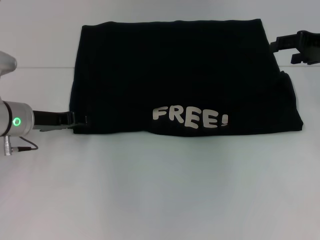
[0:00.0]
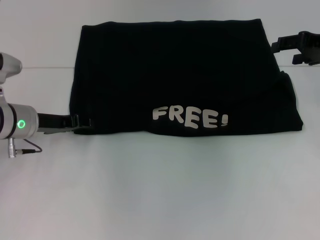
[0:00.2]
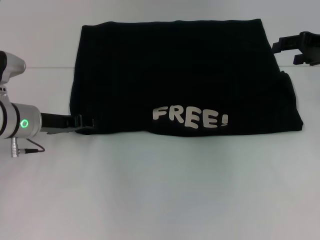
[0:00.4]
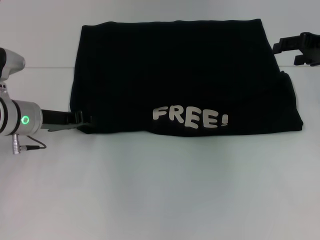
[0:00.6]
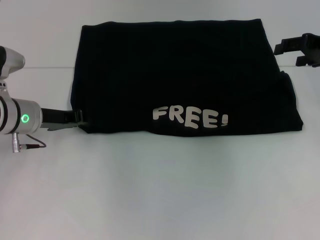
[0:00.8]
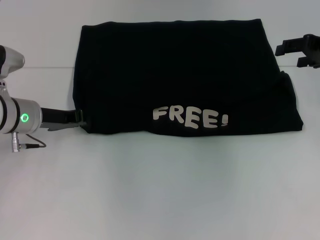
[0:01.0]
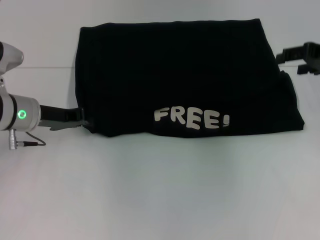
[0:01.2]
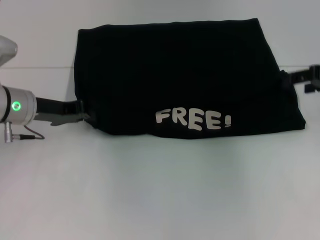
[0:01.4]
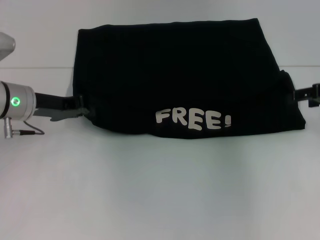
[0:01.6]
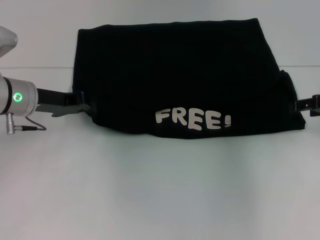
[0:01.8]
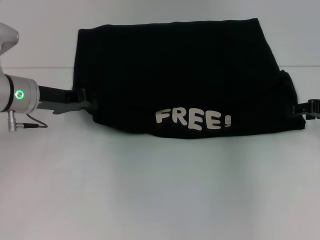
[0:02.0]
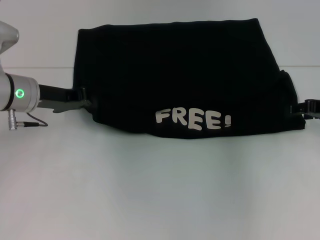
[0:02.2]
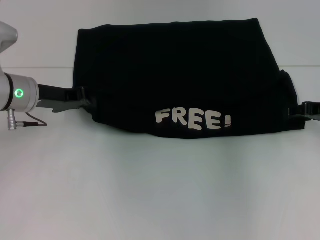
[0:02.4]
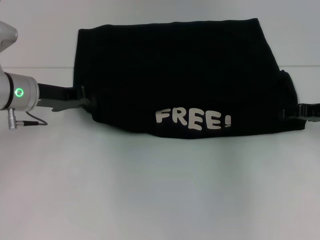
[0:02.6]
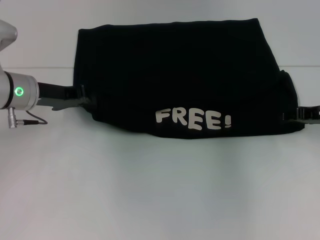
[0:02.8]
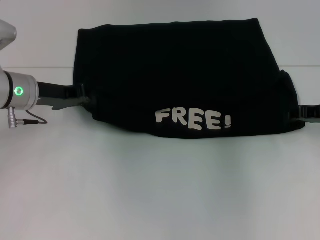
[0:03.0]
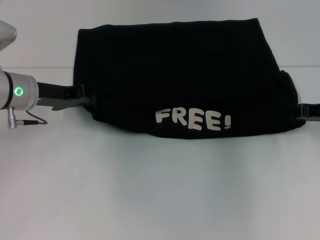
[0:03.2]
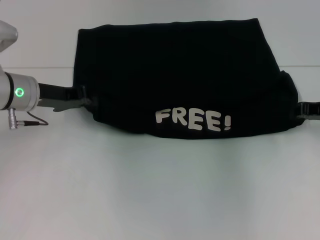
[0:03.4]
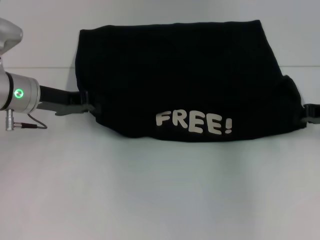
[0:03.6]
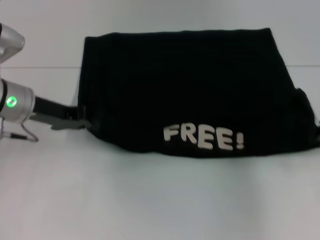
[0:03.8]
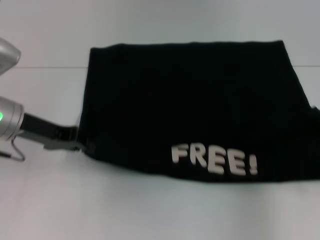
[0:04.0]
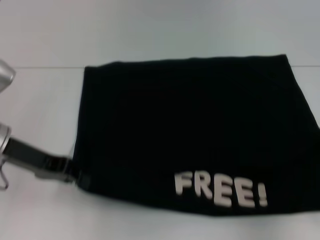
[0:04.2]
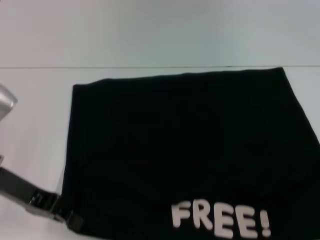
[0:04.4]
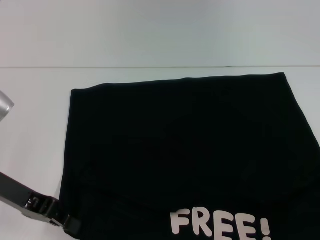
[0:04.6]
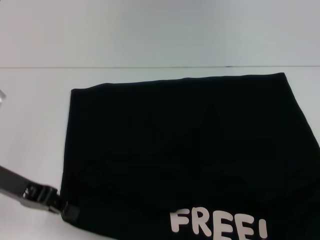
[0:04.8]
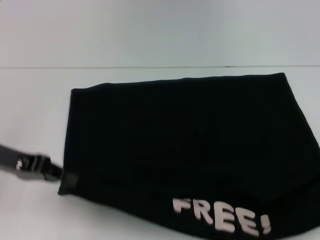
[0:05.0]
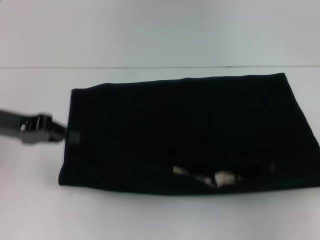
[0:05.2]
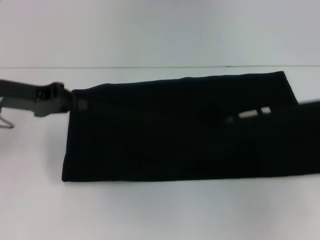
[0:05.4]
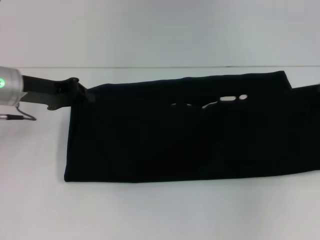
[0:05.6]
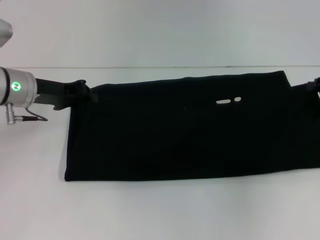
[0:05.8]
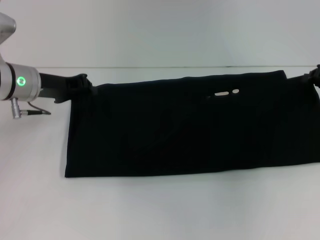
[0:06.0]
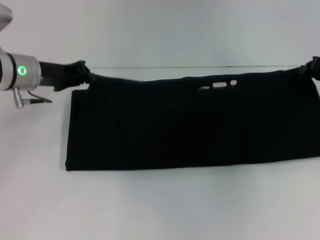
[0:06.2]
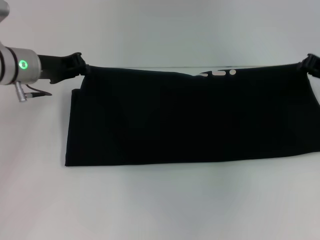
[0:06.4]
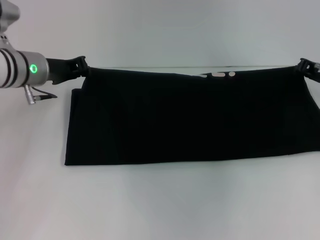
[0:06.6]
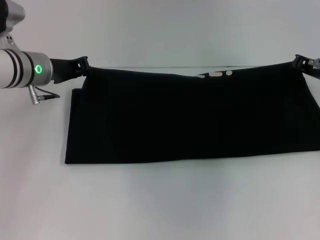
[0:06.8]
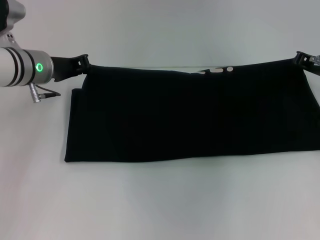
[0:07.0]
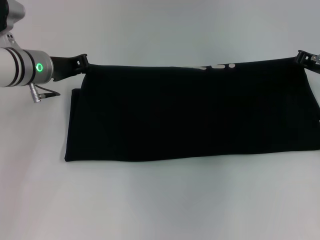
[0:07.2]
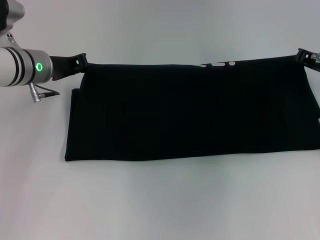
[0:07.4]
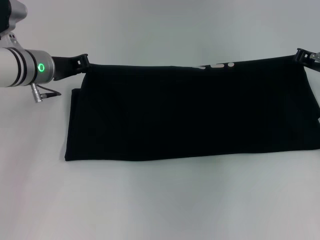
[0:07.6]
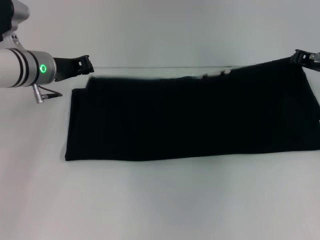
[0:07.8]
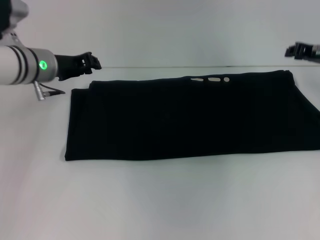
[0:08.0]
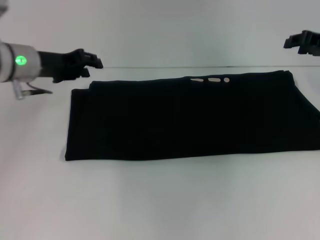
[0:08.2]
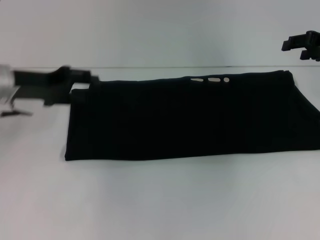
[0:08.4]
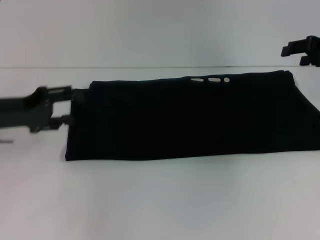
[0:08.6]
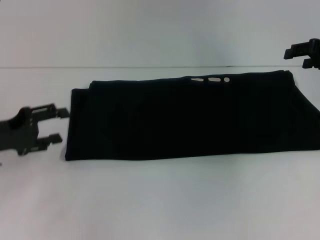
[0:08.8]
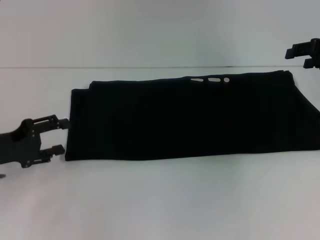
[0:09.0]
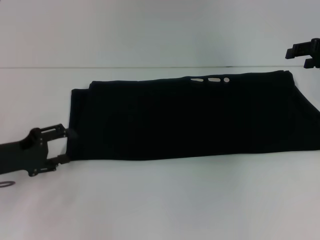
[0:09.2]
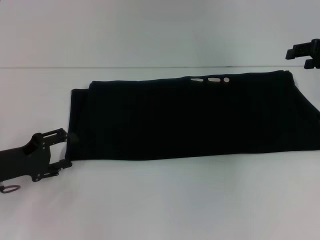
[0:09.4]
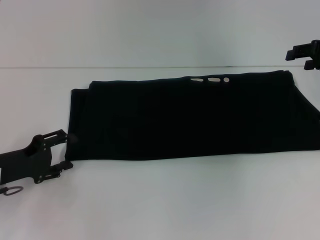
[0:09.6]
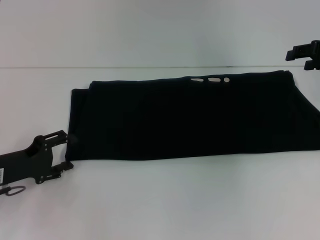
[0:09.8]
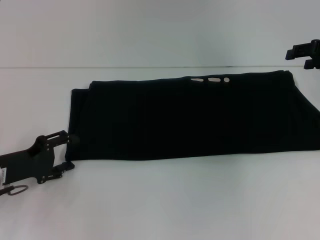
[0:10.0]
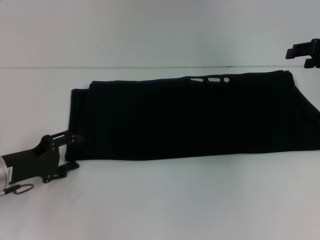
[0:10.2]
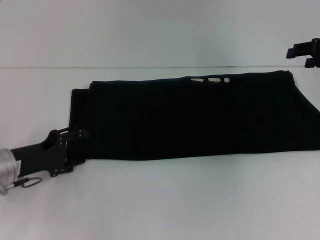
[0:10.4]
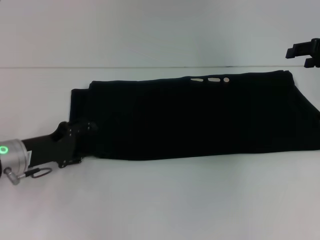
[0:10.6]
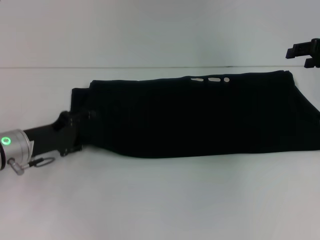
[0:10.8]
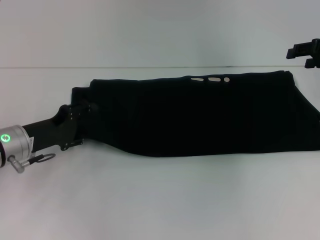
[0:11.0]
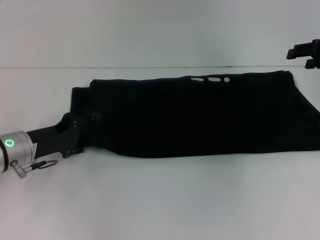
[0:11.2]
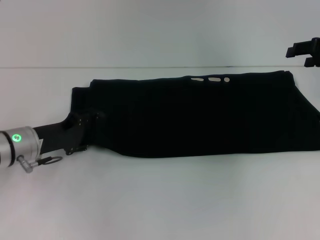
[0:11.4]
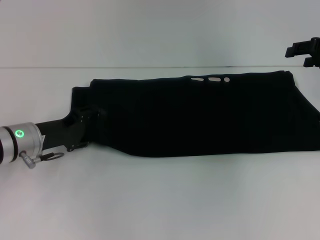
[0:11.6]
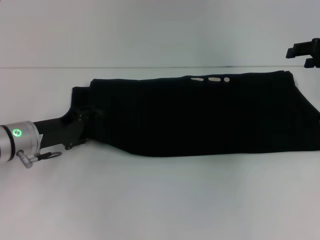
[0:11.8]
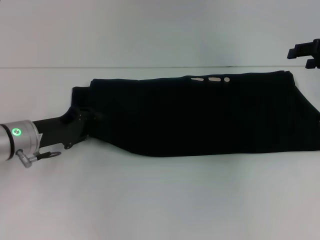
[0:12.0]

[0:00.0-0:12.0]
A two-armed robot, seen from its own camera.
Step, 0:00.0 to 0:04.4: Pull the clothes with your left hand.
Step, 0:00.0 to 0:04.4: Pull the clothes with your right hand.
Step, 0:04.6 to 0:08.2: Fold the clothes with your right hand.
0:00.0 to 0:01.6: The right gripper changes place by approximately 5 cm. Meanwhile the left gripper closes its fingers.
0:01.6 to 0:03.0: The right gripper is displaced downward by some 5 cm.
0:03.0 to 0:04.4: The left gripper heads backward, covering approximately 10 cm. The right gripper shifts approximately 15 cm backward and to the right, and closes.
0:04.4 to 0:06.0: The grippers both shift forward by approximately 15 cm.
0:06.0 to 0:07.6: The right gripper changes place by some 5 cm.
0:07.6 to 0:09.0: The left gripper moves backward and to the left, about 20 cm, and opens, while the right gripper shifts some 5 cm upward, and opens up.
0:09.0 to 0:10.4: The left gripper ends up roughly 5 cm from where it was.
0:10.4 to 0:12.0: The left gripper changes place by about 5 cm.

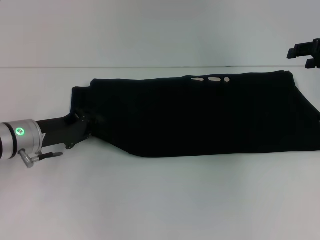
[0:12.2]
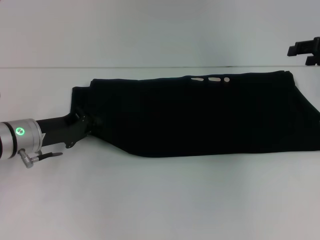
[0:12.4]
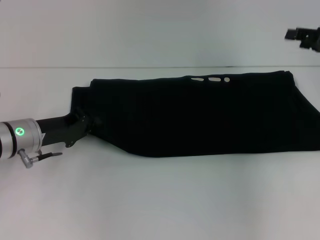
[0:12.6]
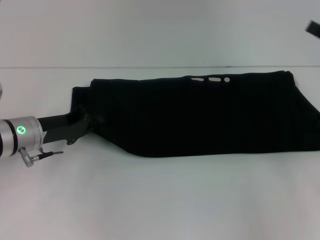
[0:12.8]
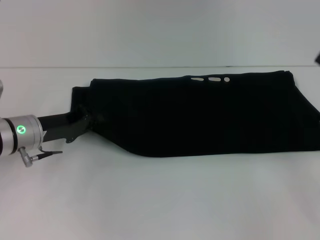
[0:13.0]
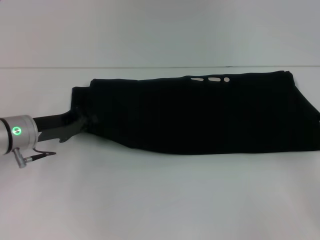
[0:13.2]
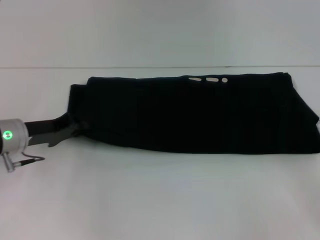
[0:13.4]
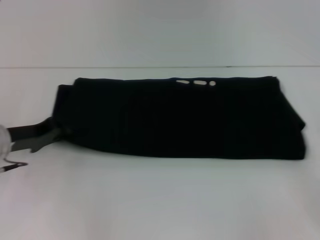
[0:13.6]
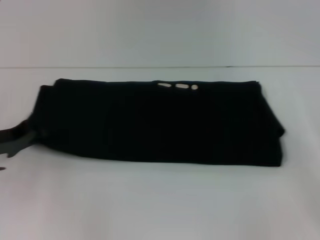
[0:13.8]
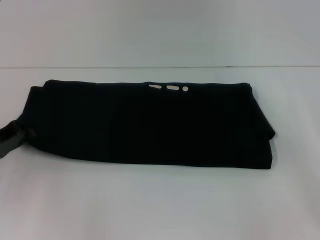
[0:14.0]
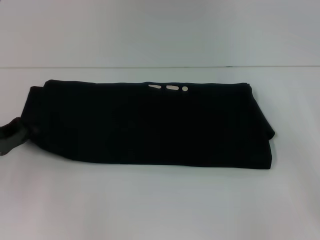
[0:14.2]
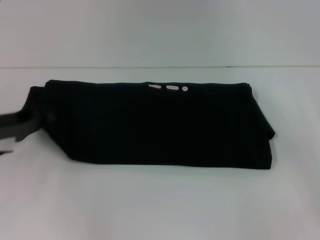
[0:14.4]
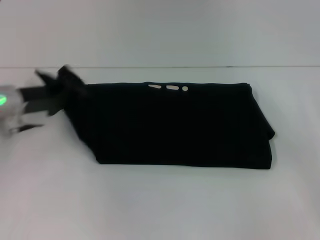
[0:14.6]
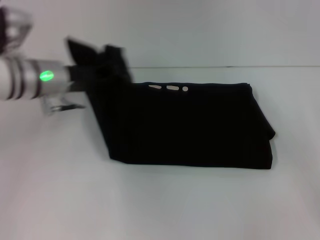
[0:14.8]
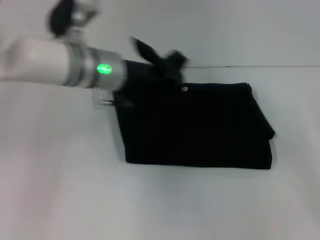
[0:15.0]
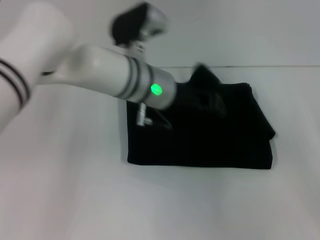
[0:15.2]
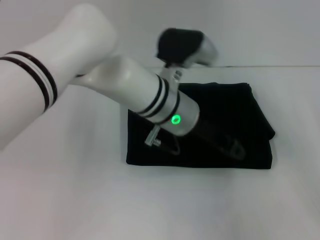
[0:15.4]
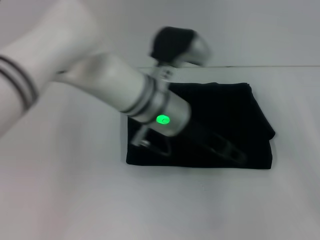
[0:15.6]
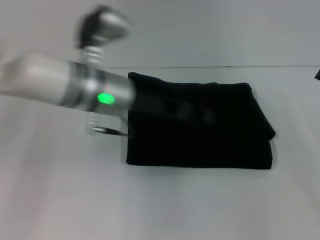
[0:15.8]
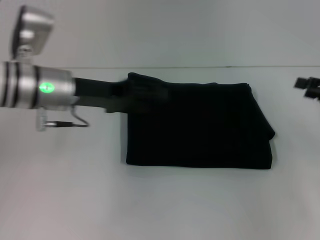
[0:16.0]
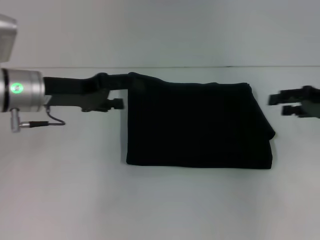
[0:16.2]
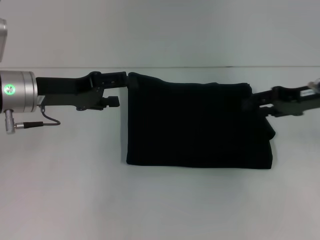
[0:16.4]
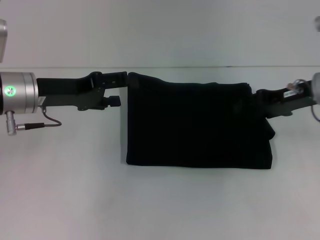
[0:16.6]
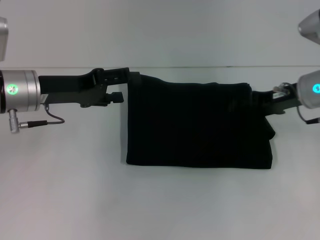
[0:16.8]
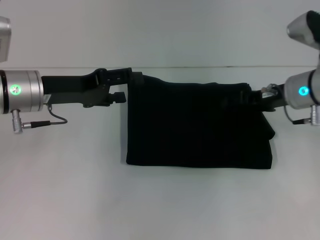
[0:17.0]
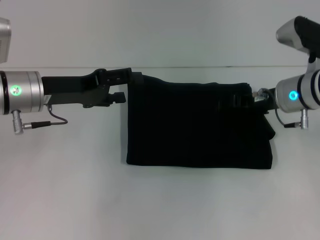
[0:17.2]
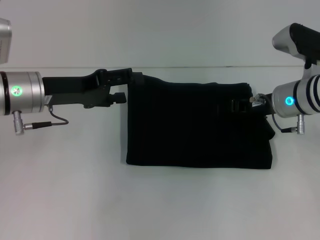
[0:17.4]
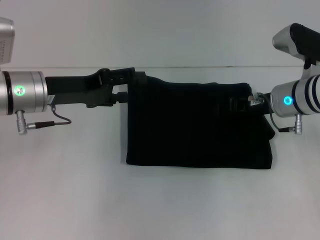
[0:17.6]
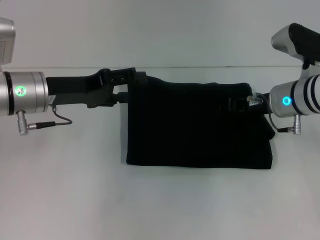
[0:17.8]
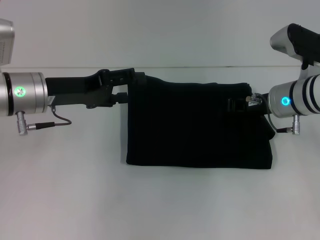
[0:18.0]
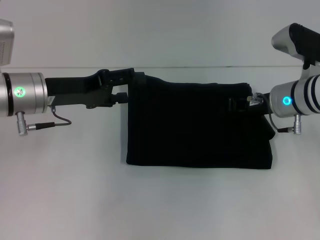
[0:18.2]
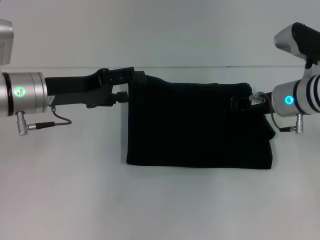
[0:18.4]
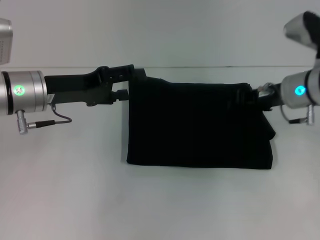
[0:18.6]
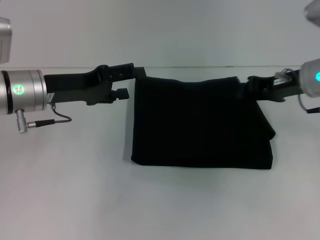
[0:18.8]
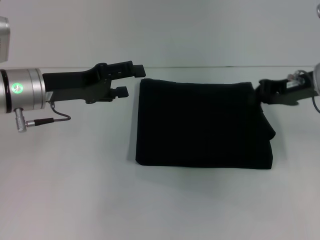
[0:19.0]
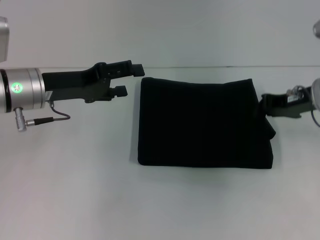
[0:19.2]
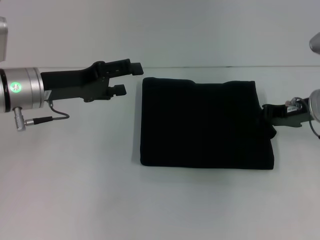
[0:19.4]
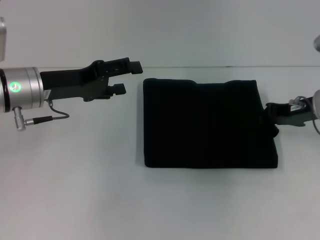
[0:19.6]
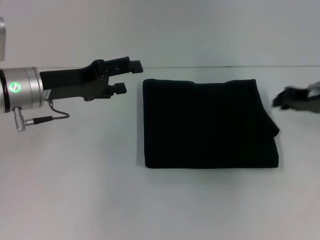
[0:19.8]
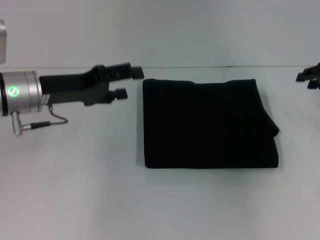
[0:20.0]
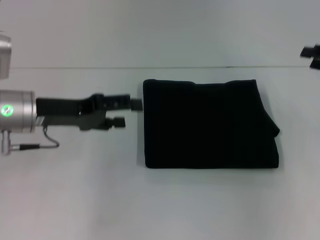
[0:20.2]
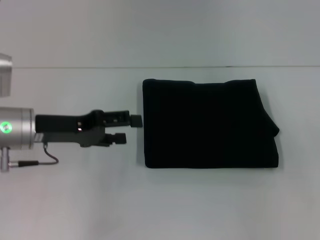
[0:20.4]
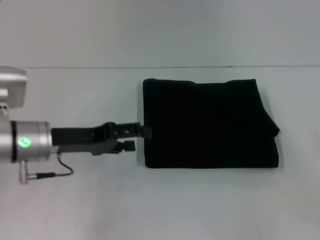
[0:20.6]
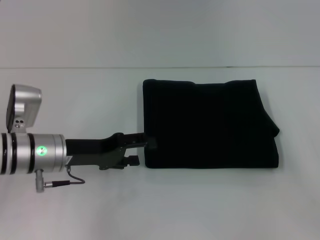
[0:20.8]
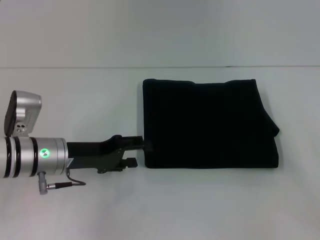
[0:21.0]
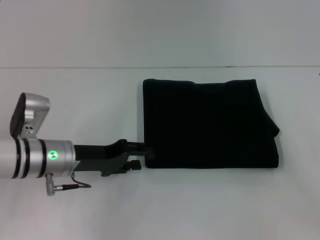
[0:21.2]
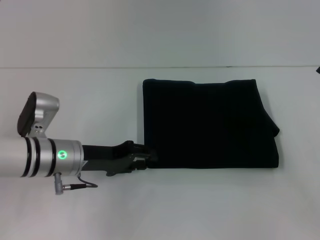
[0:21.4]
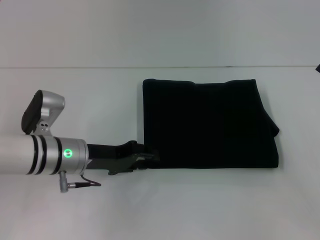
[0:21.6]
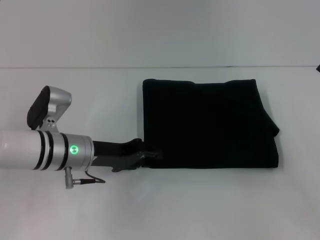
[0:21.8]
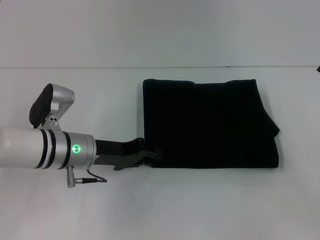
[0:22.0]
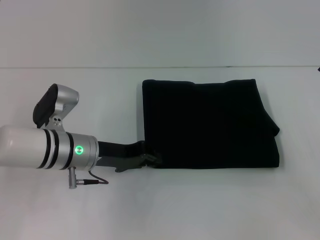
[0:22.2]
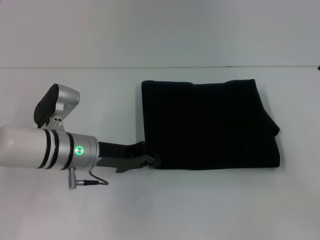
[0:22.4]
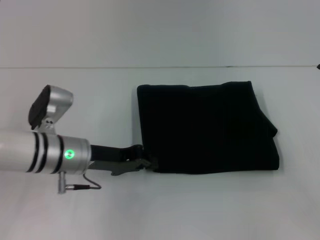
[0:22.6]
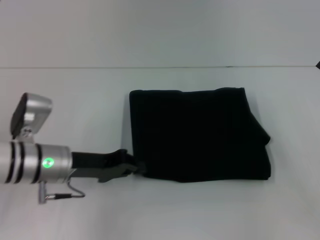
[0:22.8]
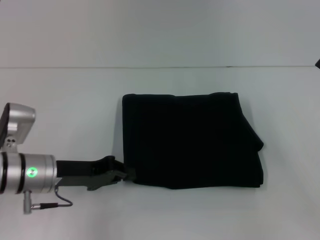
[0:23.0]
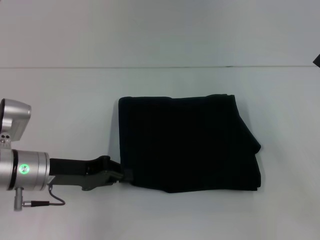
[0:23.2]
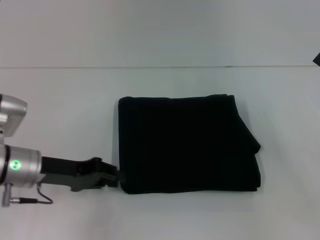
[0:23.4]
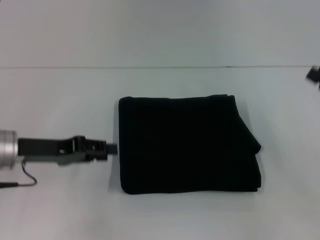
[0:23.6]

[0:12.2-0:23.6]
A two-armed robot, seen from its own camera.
Step, 0:12.2 to 0:15.8: Fold the clothes with your left hand.
0:12.2 to 0:13.6: The right gripper is displaced backward and downward by approximately 15 cm; the left gripper closes up.
0:13.6 to 0:15.0: The left gripper is displaced to the right and upward by approximately 20 cm.
0:15.0 to 0:16.4: The left gripper goes approximately 10 cm to the left, and opens its fingers; the right gripper shifts roughly 15 cm forward, to the left and upward.
0:16.4 to 0:17.8: The right gripper is displaced to the left by roughly 10 cm.
0:17.8 to 0:19.4: The right gripper shifts approximately 5 cm to the right, and closes.
0:19.4 to 0:20.8: The right gripper is displaced backward and to the right by about 15 cm, and opens its fingers, while the left gripper shifts some 10 cm downward.
0:20.8 to 0:22.2: The left gripper closes.
0:22.2 to 0:23.6: The left gripper moves to the left, roughly 10 cm.
